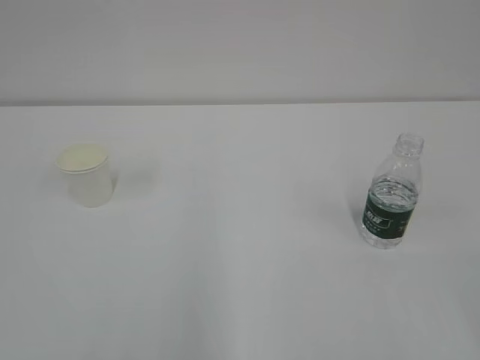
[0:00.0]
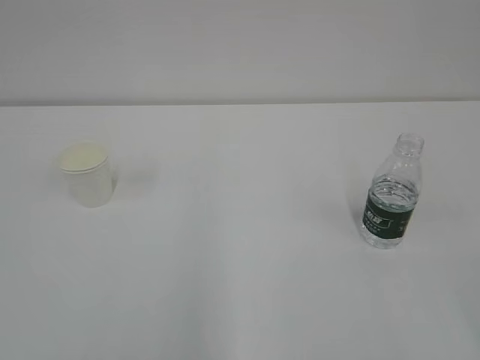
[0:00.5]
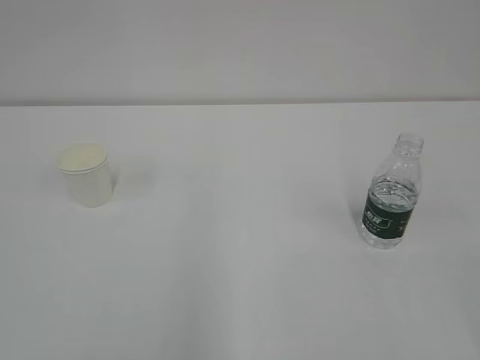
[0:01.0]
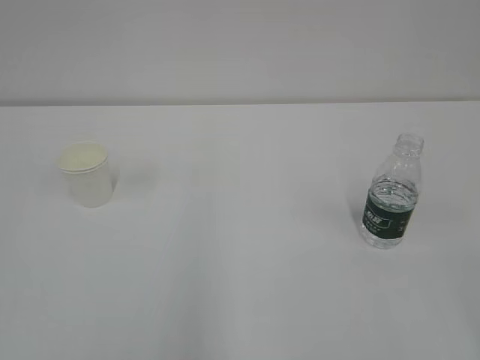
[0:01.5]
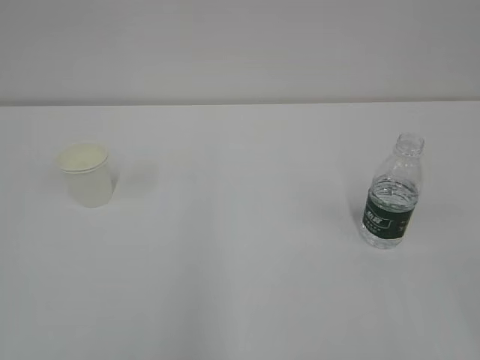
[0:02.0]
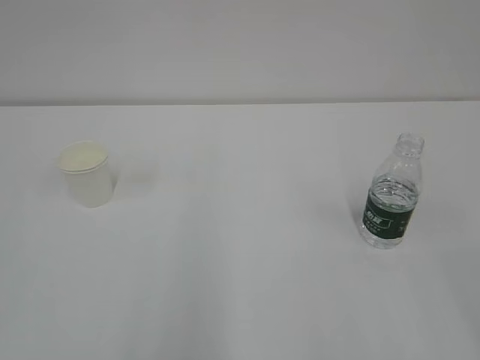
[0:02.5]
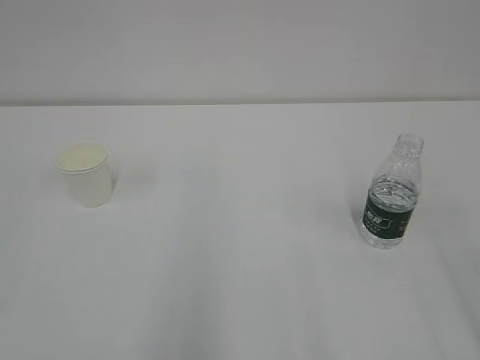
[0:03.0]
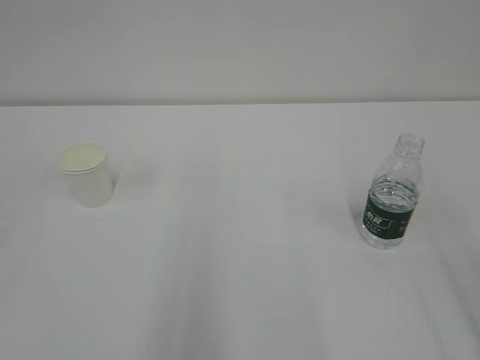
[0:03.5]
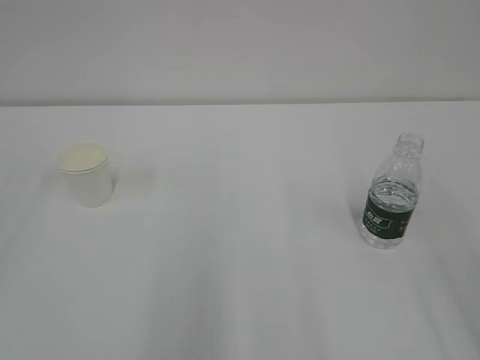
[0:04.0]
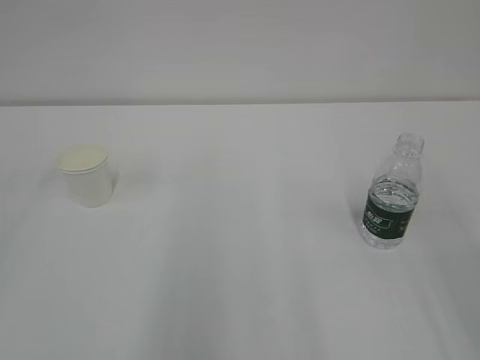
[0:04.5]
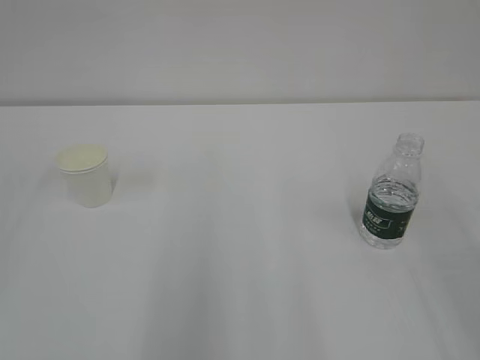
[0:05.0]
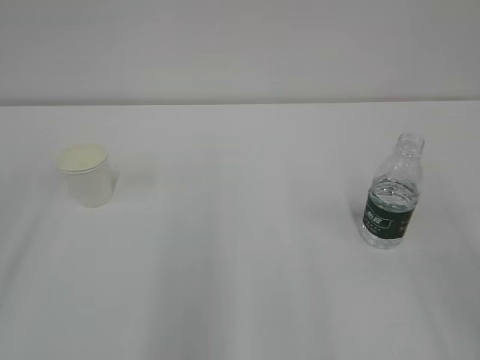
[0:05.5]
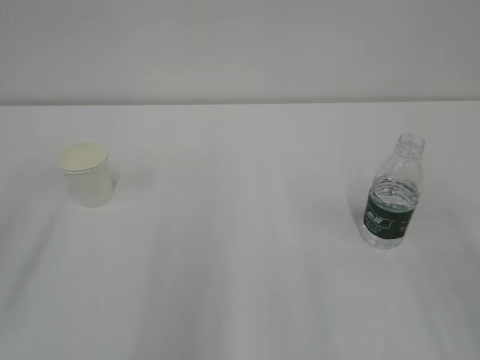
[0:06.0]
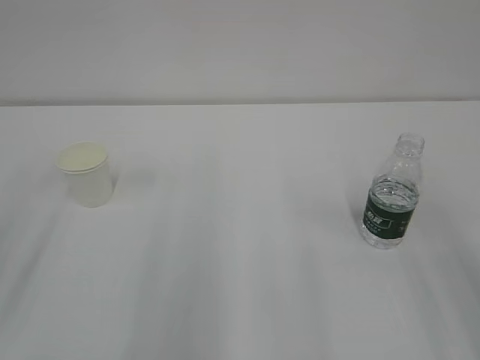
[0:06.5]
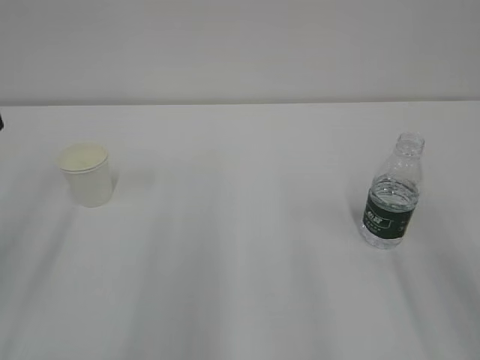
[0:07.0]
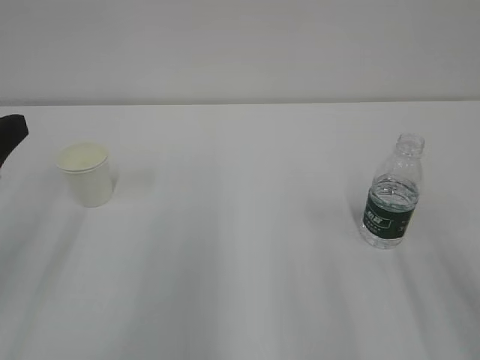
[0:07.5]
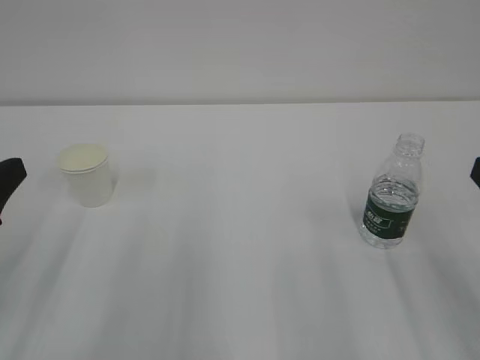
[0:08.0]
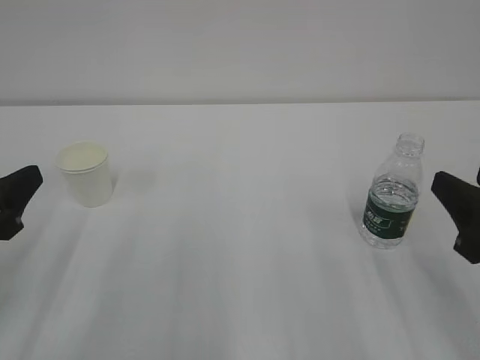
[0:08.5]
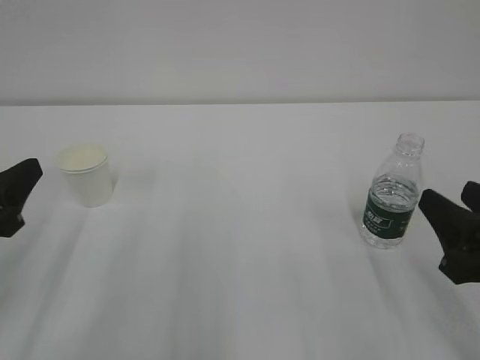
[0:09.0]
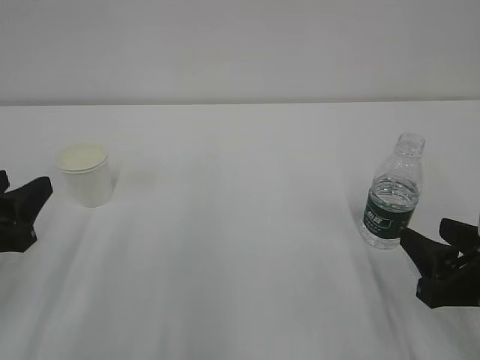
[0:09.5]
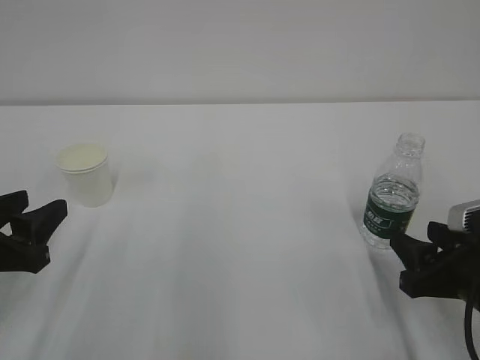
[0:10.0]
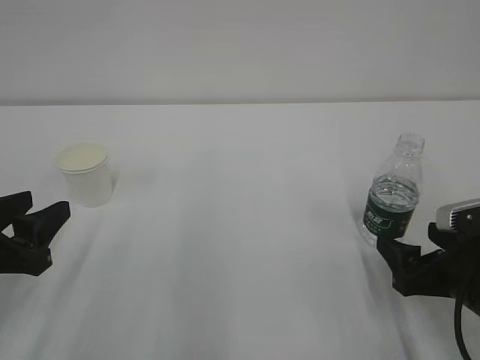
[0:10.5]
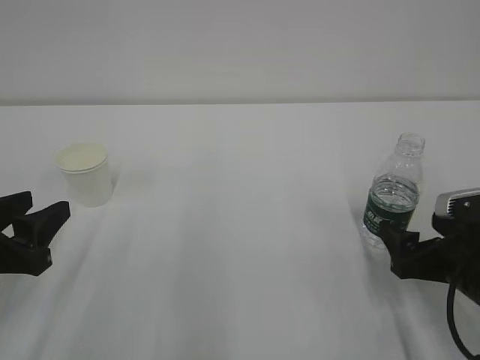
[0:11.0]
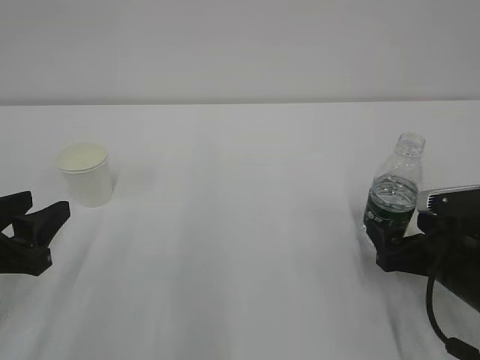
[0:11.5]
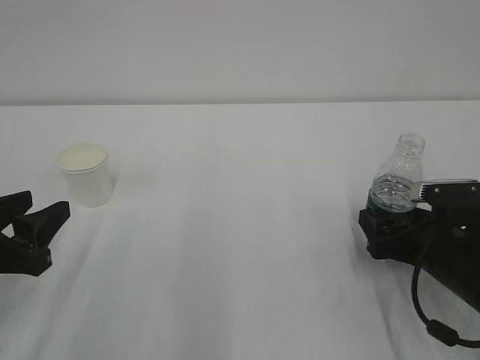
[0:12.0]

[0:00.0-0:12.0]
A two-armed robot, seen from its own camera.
0:08.0 to 0:10.0: The left gripper is displaced downward by some 5 cm. Meanwhile the right gripper moves downward and forward, roughly 15 cm.
0:10.0 to 0:12.0: The right gripper heads forward, covering roughly 5 cm, and opens up.

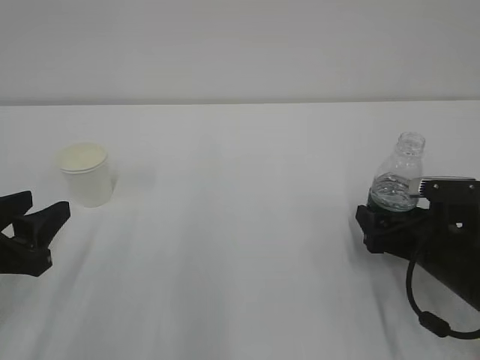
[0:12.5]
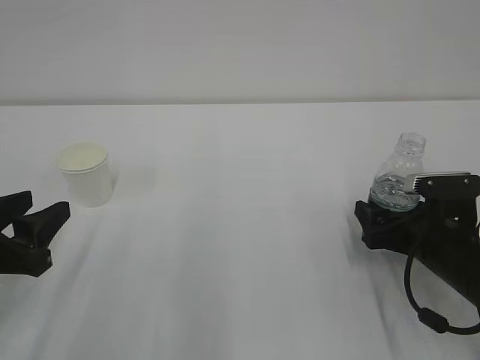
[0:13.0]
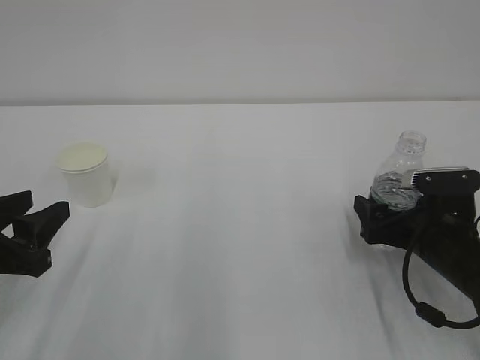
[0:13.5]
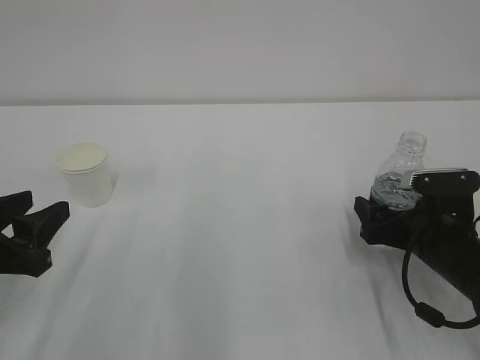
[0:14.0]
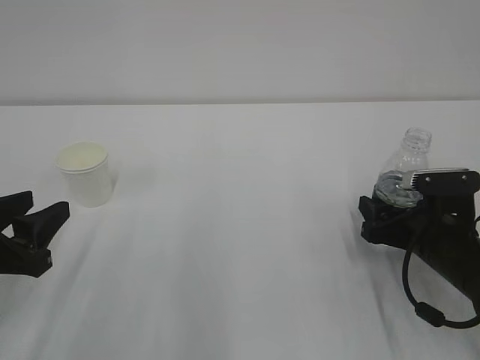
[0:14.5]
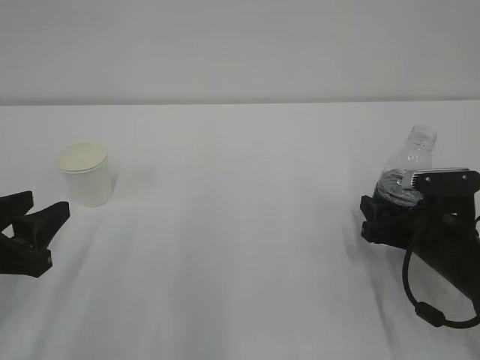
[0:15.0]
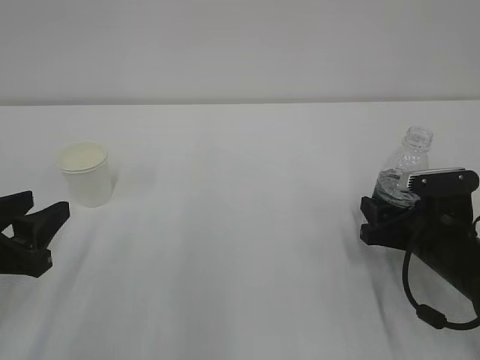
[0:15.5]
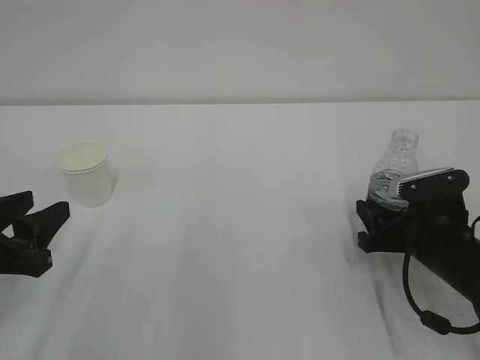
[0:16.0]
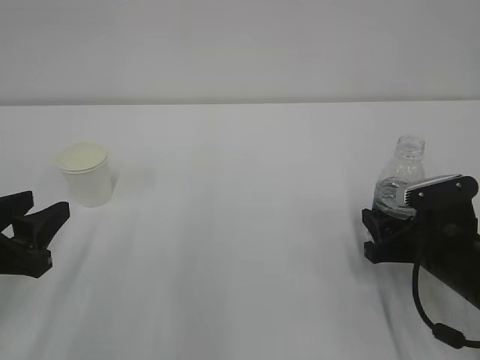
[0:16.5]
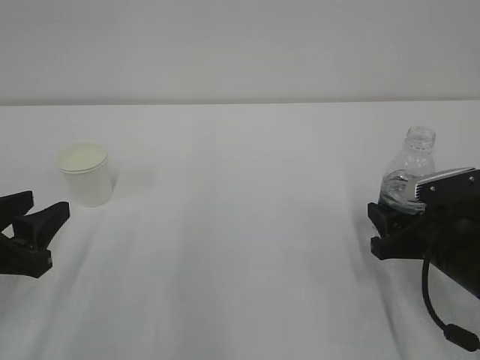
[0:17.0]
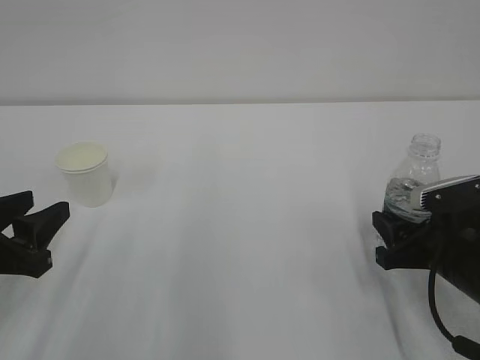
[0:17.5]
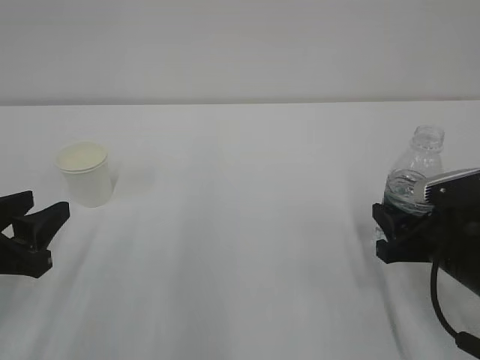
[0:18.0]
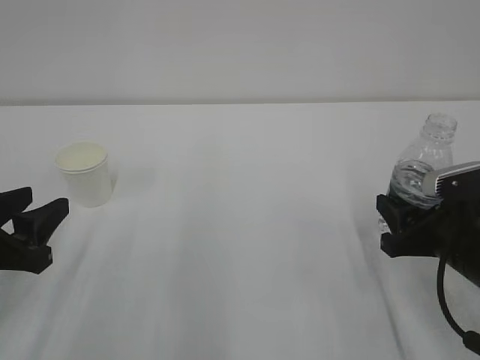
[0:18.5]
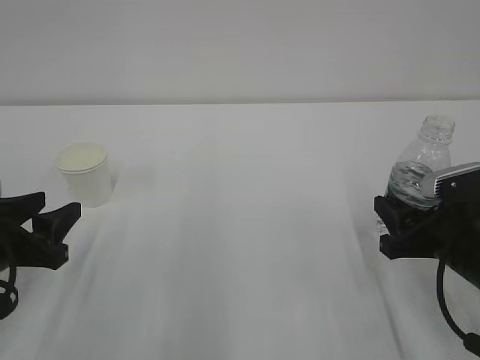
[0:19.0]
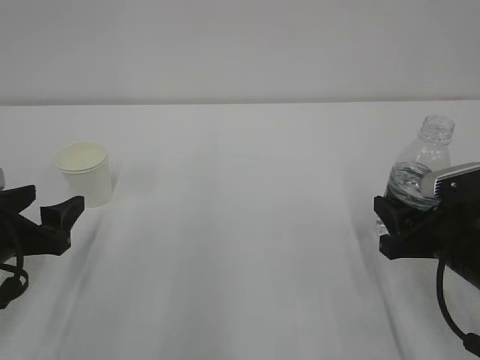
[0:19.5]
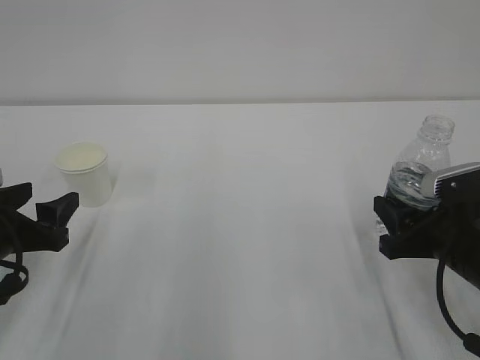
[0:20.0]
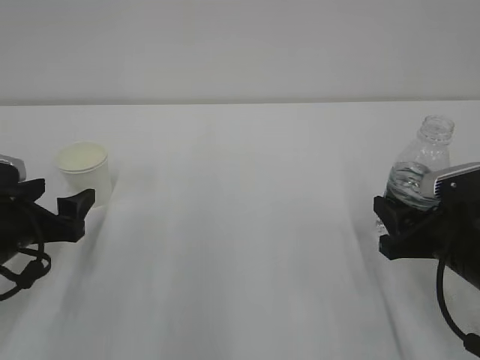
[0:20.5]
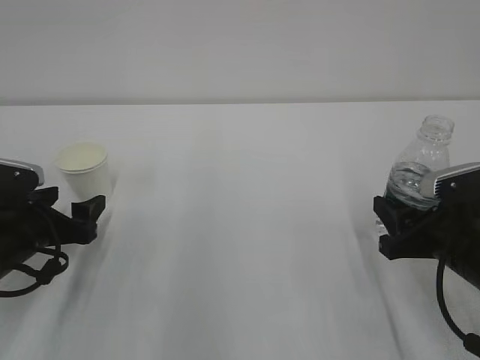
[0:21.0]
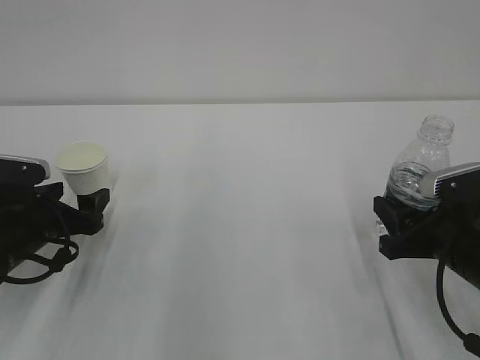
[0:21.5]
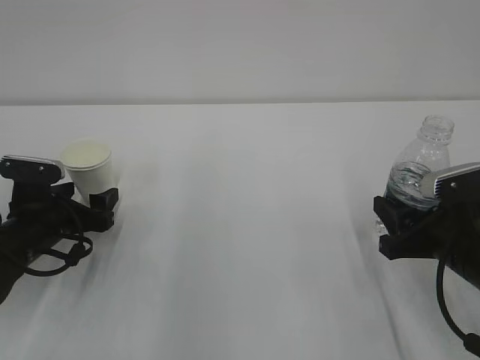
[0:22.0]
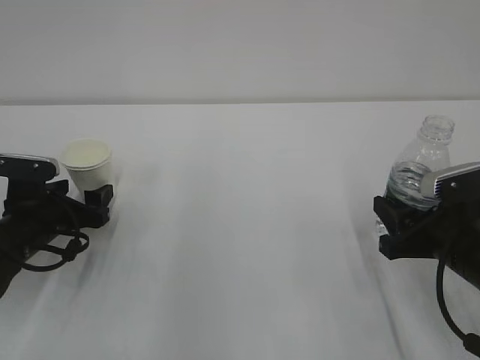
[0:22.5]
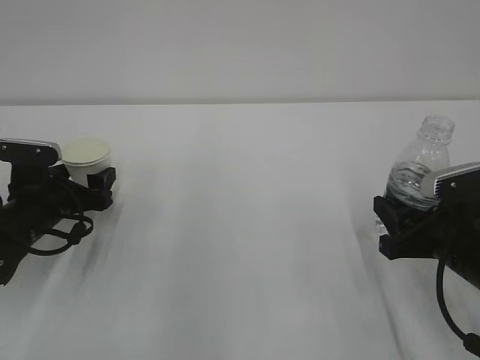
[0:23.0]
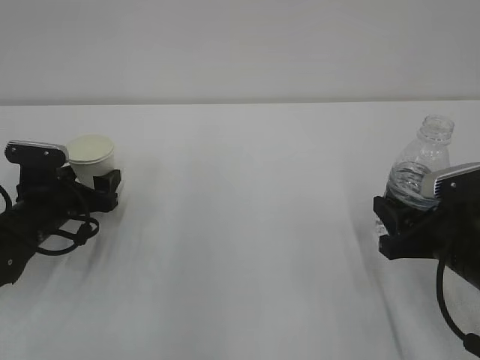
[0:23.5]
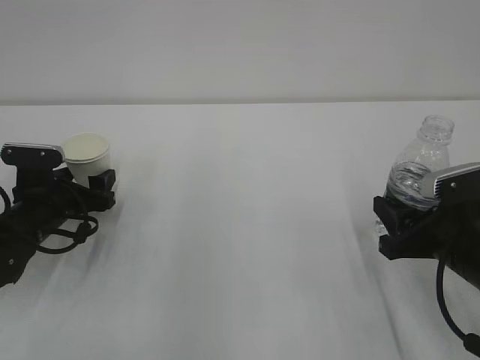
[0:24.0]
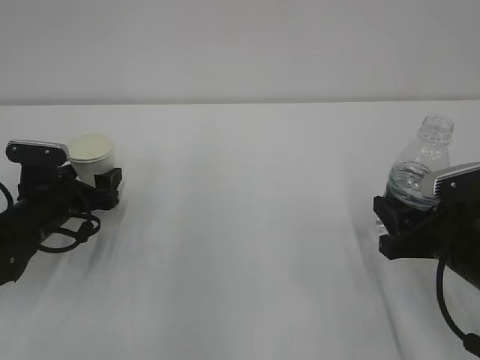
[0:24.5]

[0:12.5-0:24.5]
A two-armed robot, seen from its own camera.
0:12.5 to 0:14.5: Both grippers stay put.
0:14.5 to 0:18.5: The grippers move only a little.
0:18.5 to 0:20.5: The left gripper goes roughly 5 cm forward, and opens its fingers.
0:20.5 to 0:22.5: The left gripper is displaced forward by some 5 cm.
0:22.5 to 0:24.5: There are only small adjustments of the grippers.

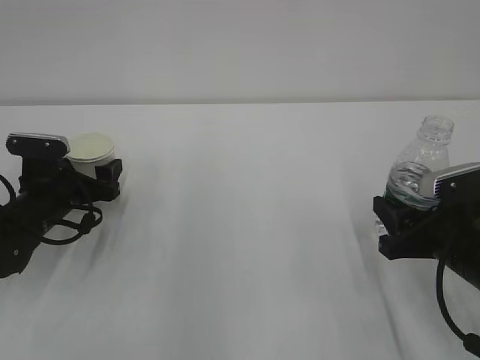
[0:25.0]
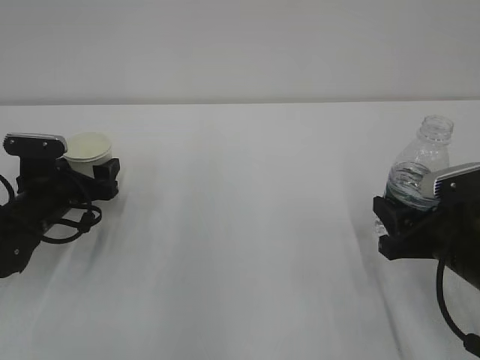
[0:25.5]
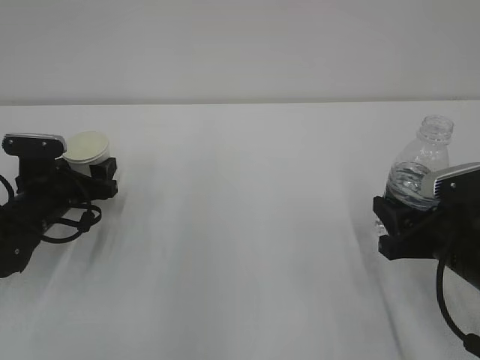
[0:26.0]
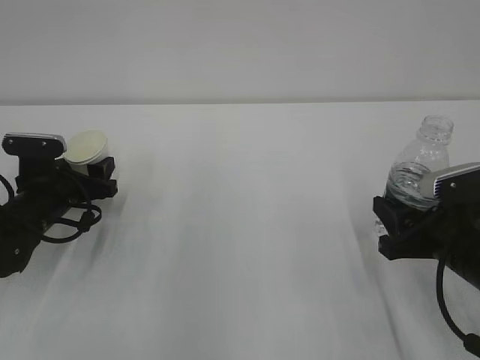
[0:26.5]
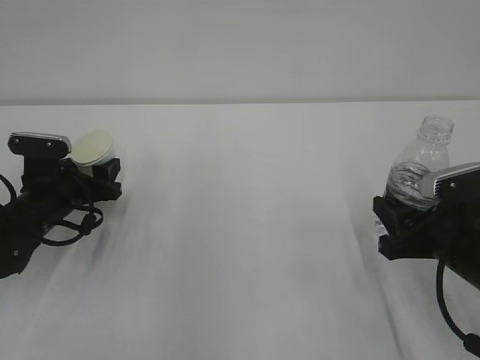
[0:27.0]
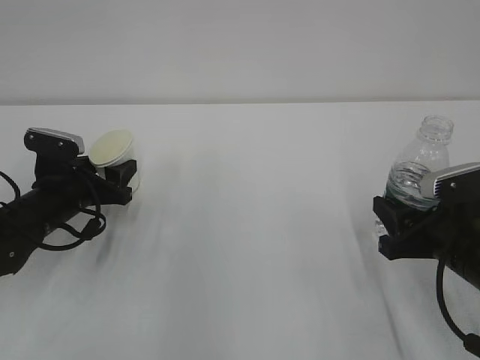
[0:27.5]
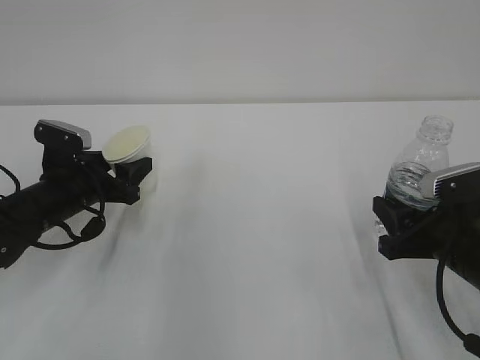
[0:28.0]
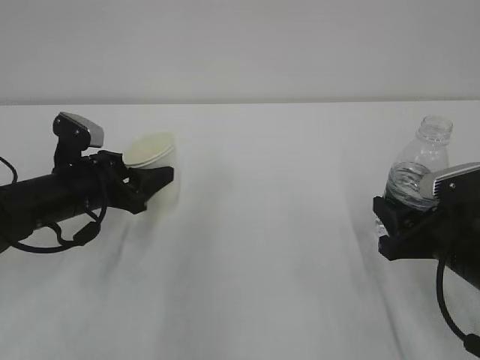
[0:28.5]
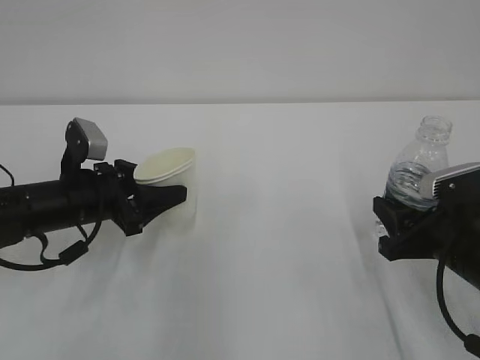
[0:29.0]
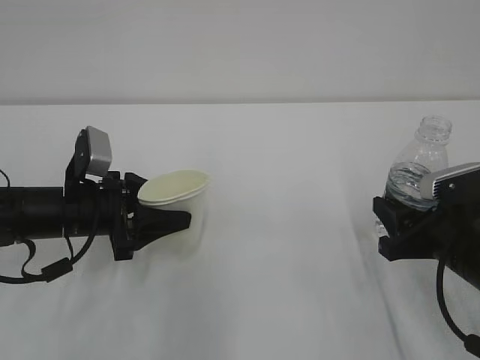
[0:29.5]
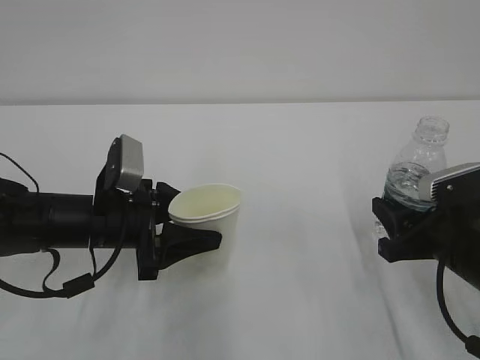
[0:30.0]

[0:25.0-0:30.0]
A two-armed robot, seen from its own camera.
0:25.0 to 0:27.5: The left gripper closes up.
0:27.5 to 0:30.0: The left gripper goes some 10 cm to the right and backward.
